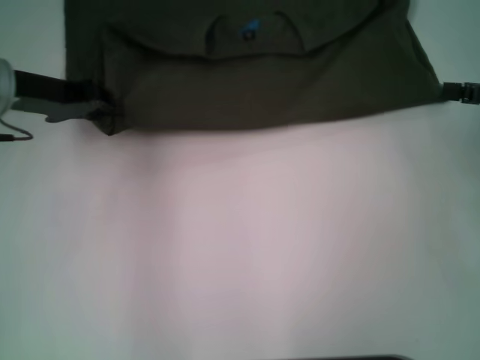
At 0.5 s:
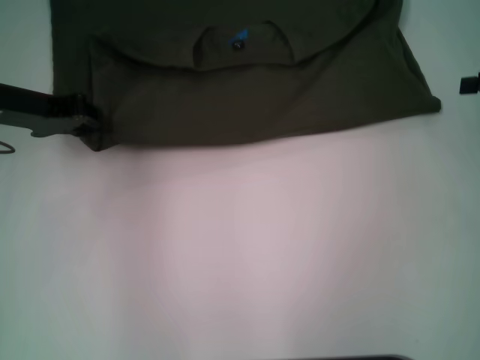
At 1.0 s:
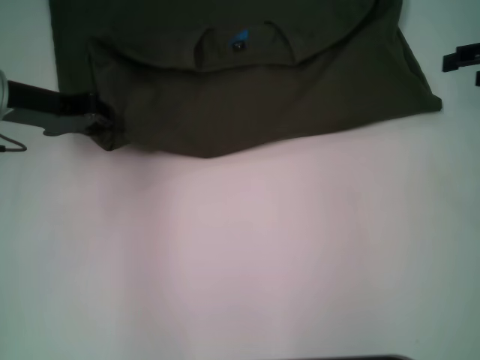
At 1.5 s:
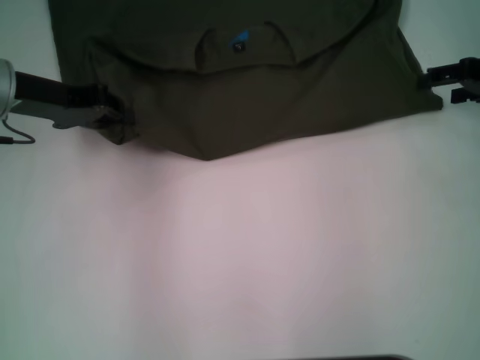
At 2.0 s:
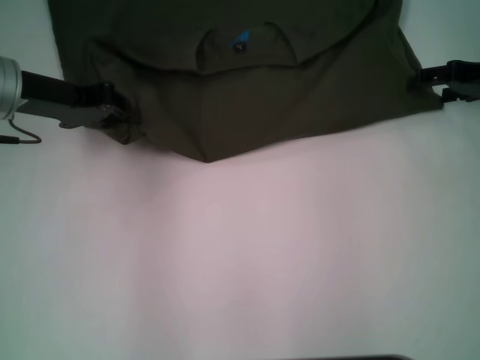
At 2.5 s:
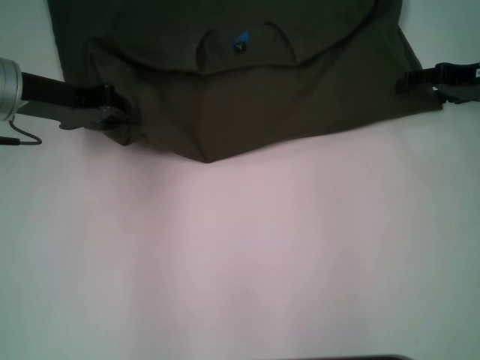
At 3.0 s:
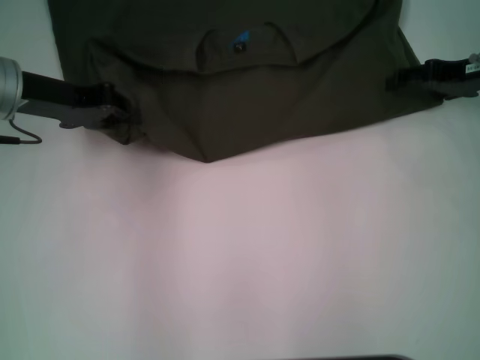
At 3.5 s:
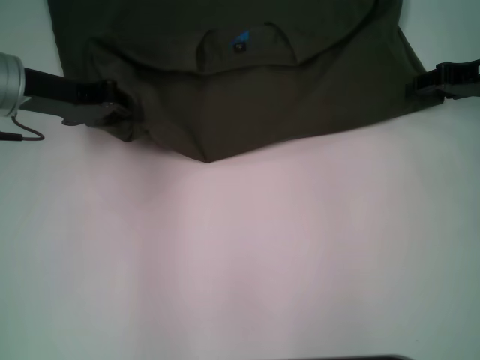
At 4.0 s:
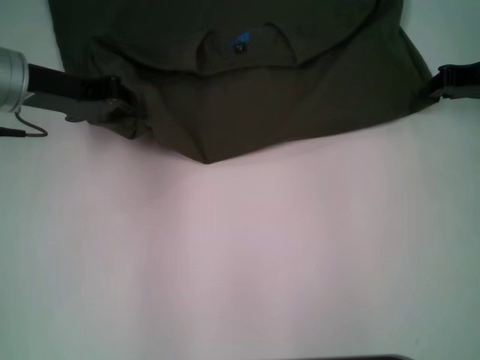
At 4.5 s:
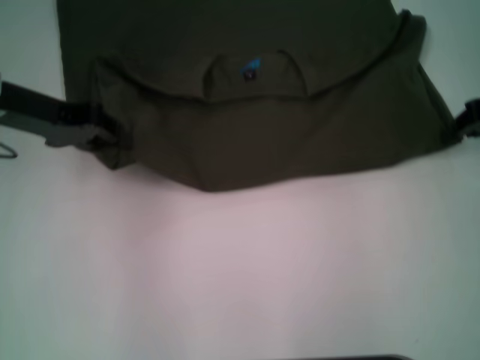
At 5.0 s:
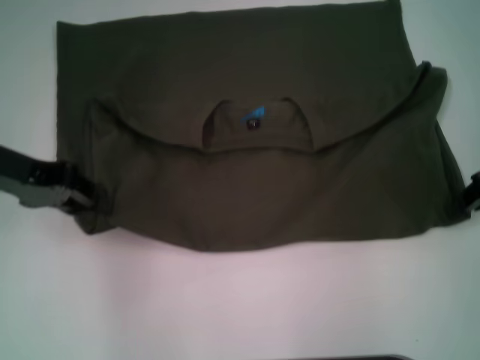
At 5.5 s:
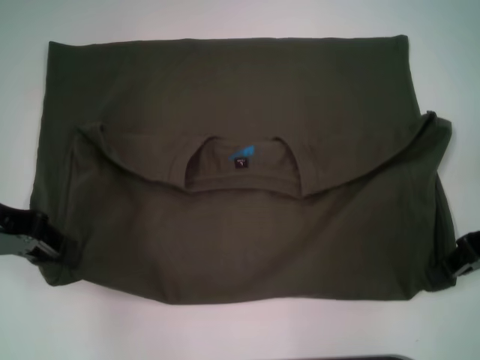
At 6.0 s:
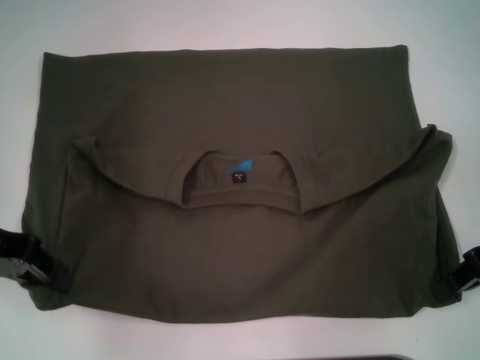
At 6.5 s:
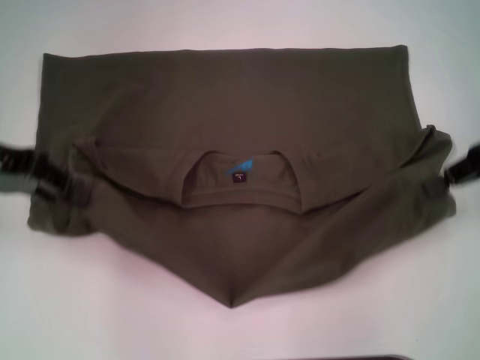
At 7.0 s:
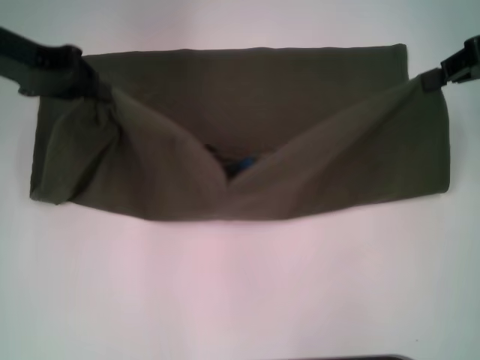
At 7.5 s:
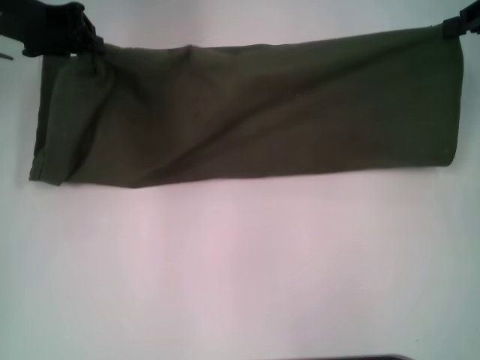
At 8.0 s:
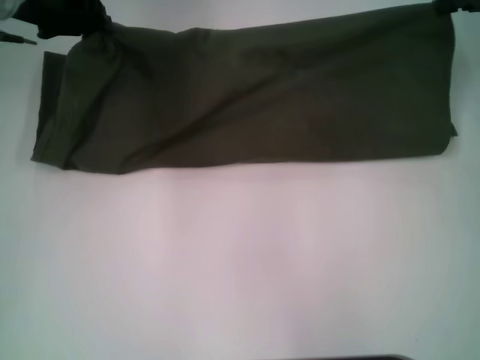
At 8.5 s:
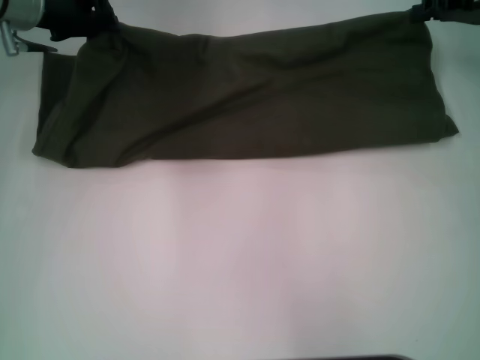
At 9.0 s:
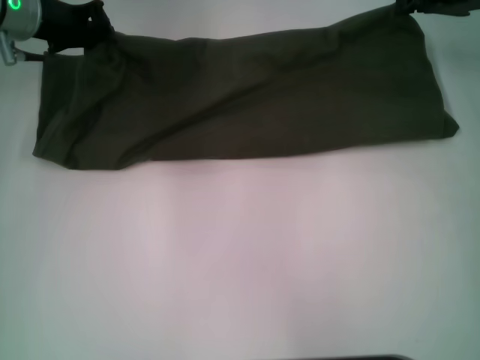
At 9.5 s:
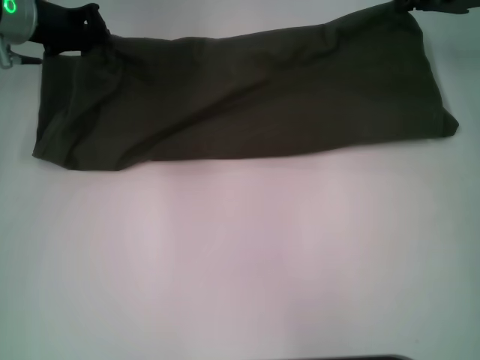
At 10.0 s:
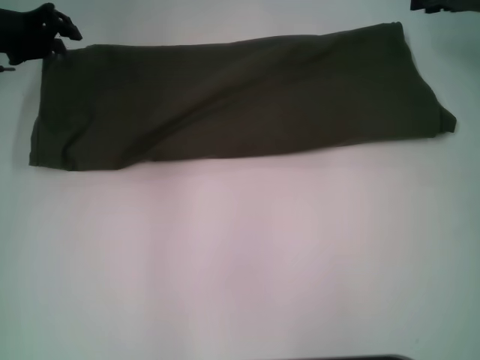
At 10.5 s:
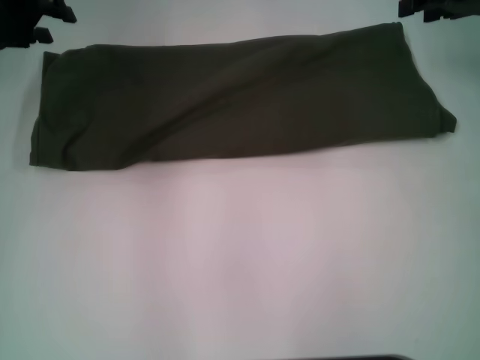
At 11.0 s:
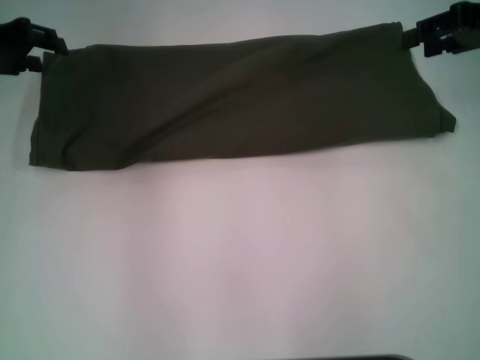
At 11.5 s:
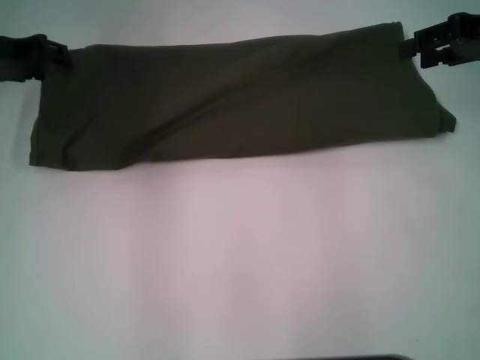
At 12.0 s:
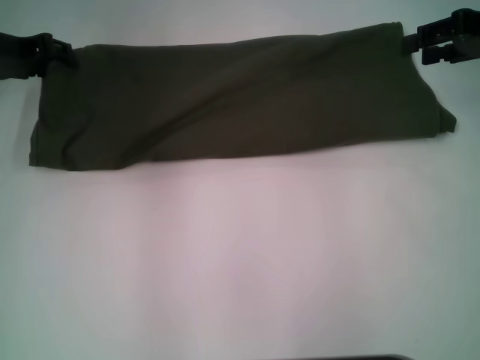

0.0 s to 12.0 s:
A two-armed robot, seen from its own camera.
Step, 0.0 to 5.5 s: Pull the clothes with your left hand.
Step, 0.0 to 5.5 s: Pull the clothes with your right hand.
Step, 6.0 to 9.5 s: Fold the clothes with your right hand.
0.0 to 2.0 s: The right gripper shifts some 10 cm forward.
2.0 to 4.0 s: The right gripper closes its fingers.
4.0 to 6.0 s: The right gripper heads backward, covering roughly 10 cm; the left gripper shifts some 10 cm backward and to the left.
6.0 to 8.0 s: The right gripper goes about 15 cm forward and upward; the left gripper goes roughly 15 cm forward and to the right.
8.0 to 10.0 s: The left gripper ends up roughly 5 cm from where it was.
10.0 to 12.0 s: The right gripper opens; the left gripper opens.

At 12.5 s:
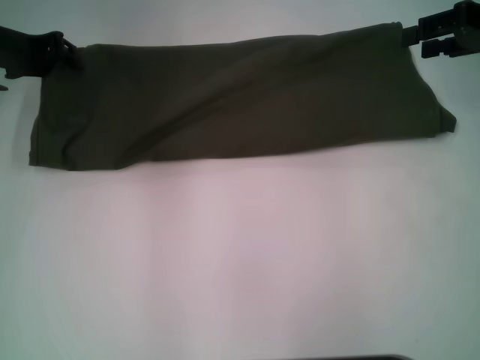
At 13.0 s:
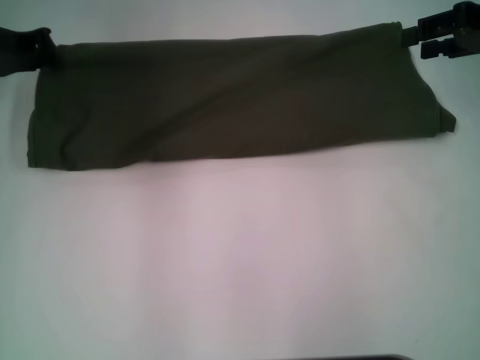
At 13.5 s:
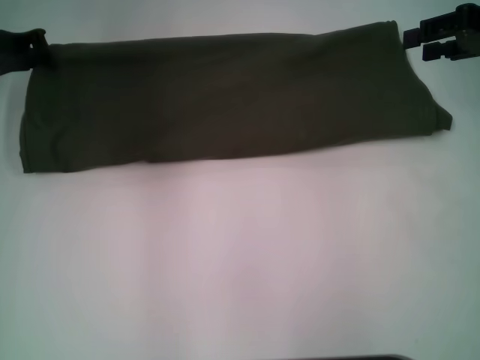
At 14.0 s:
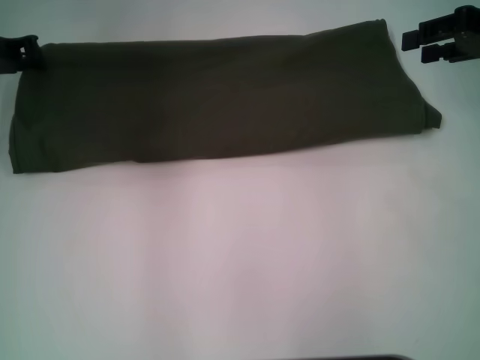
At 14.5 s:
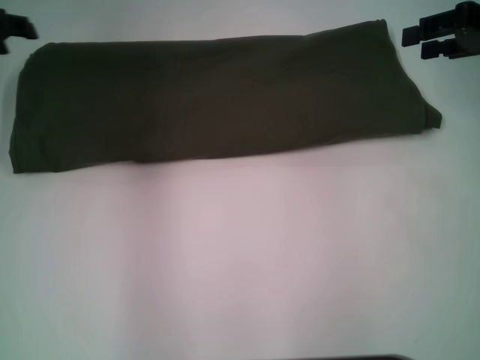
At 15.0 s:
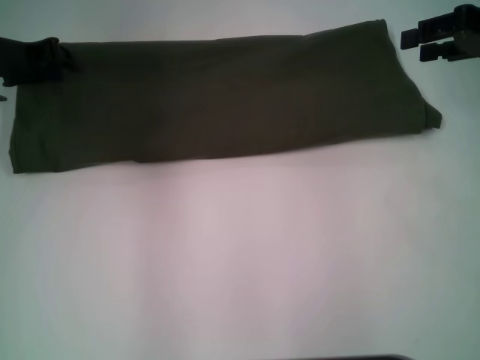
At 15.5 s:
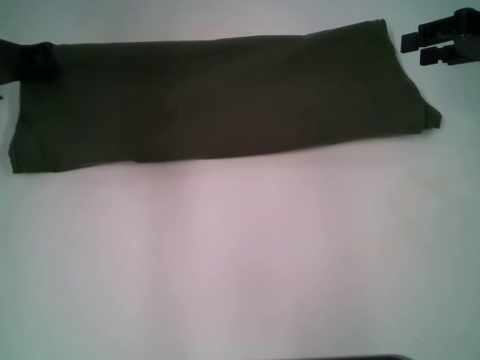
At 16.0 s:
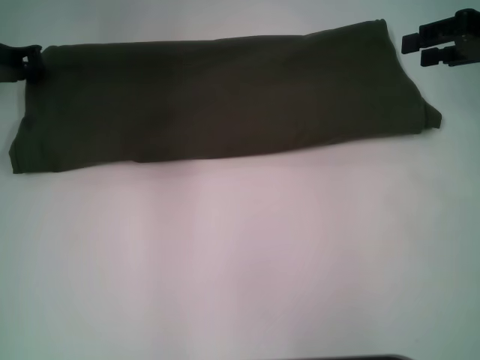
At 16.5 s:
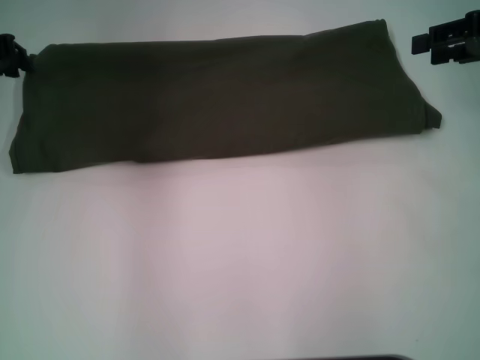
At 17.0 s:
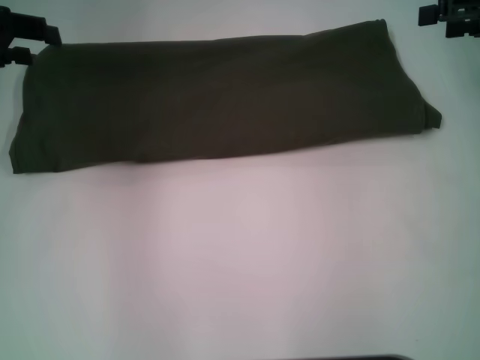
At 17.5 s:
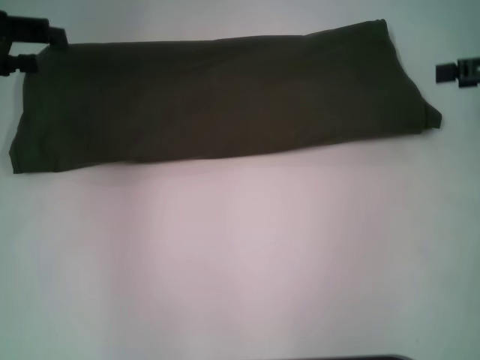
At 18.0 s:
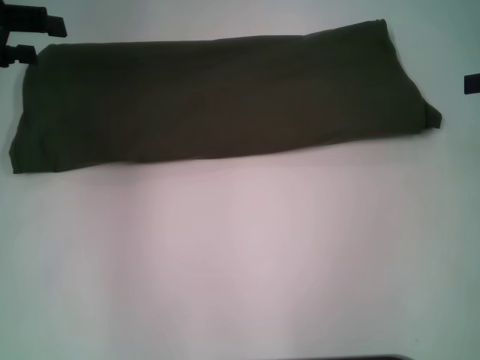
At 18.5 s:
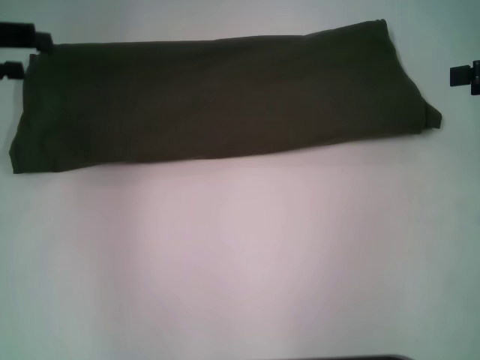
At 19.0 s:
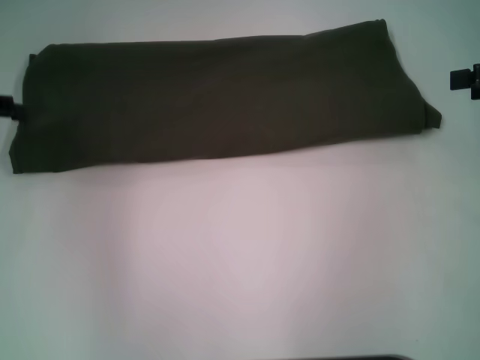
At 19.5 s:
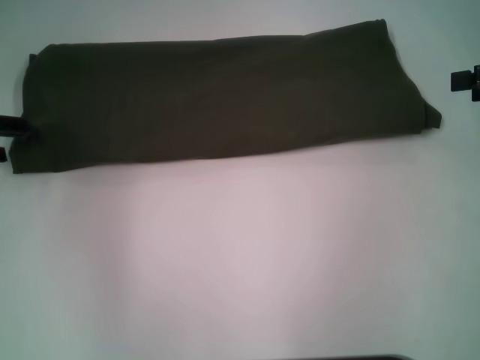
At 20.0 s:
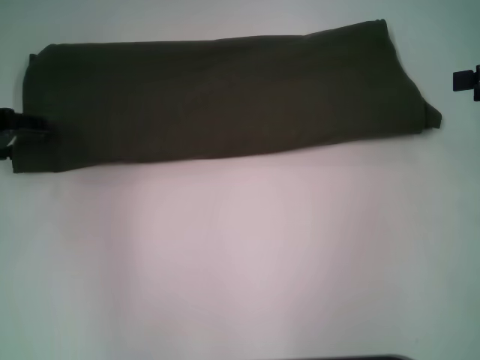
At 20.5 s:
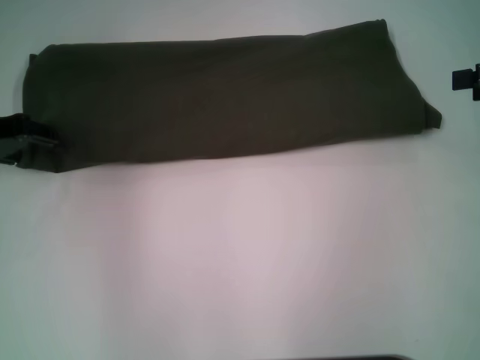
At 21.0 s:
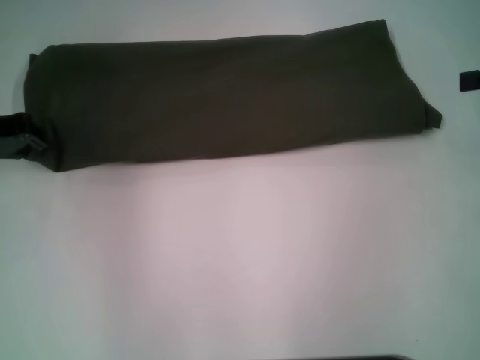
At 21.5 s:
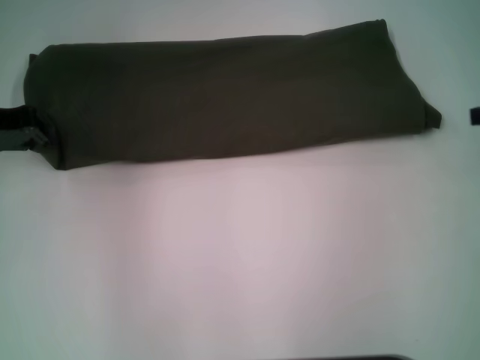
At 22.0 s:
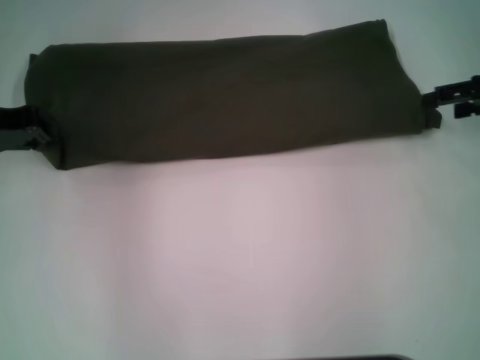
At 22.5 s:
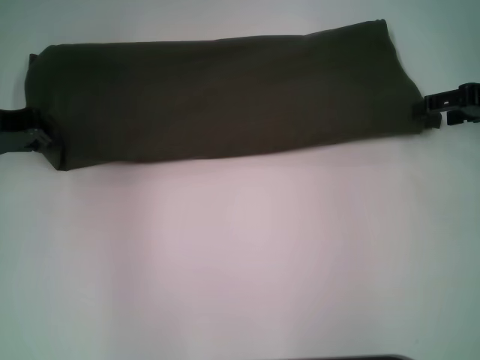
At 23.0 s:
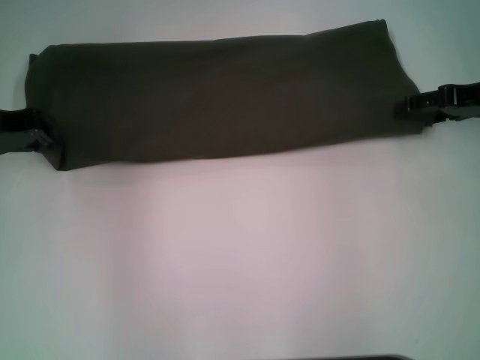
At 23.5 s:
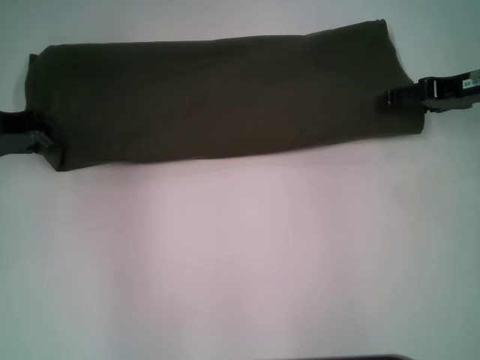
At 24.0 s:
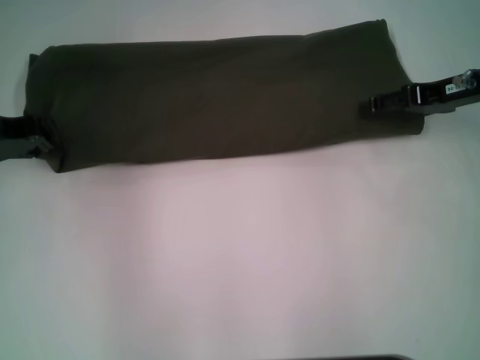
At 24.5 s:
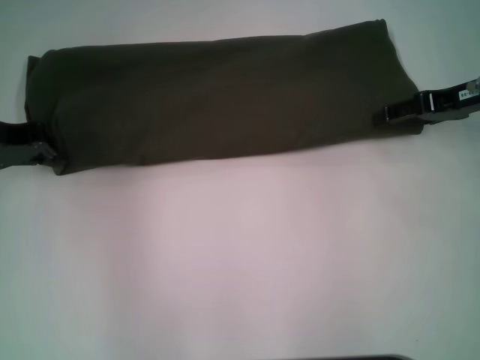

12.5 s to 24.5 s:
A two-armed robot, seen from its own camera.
12.5 to 14.5 s: The left gripper closes, then reopens.
14.5 to 16.5 s: The left gripper closes up.
16.5 to 18.5 s: The left gripper changes place by about 5 cm, and opens, while the right gripper shifts by about 5 cm, and opens up.
18.5 to 20.5 s: The left gripper is displaced downward by some 5 cm.
20.5 to 22.5 s: The left gripper closes its fingers. The right gripper shifts by approximately 5 cm.
22.5 to 24.5 s: The grippers move only a little.

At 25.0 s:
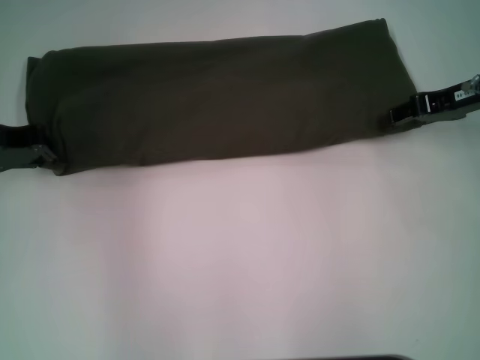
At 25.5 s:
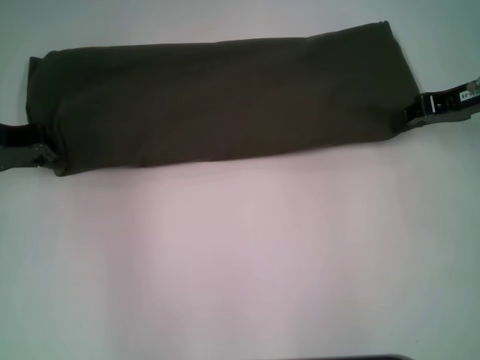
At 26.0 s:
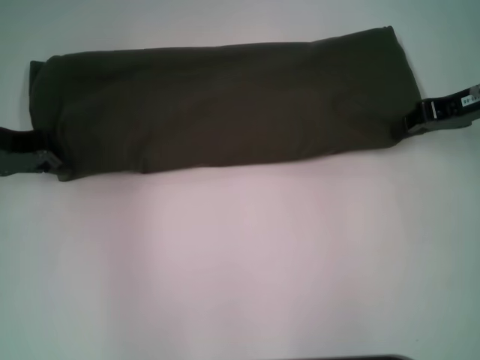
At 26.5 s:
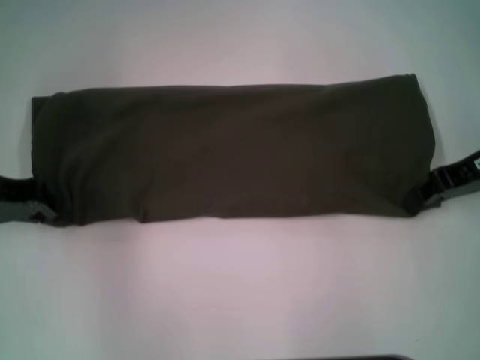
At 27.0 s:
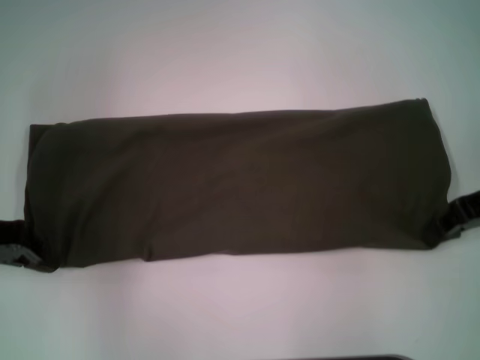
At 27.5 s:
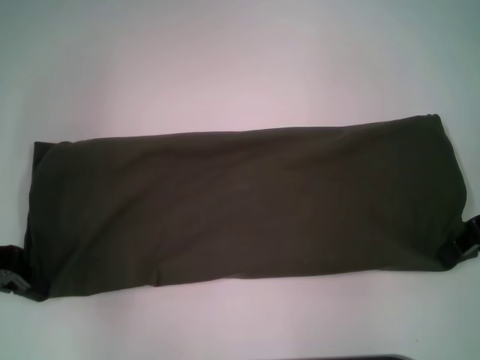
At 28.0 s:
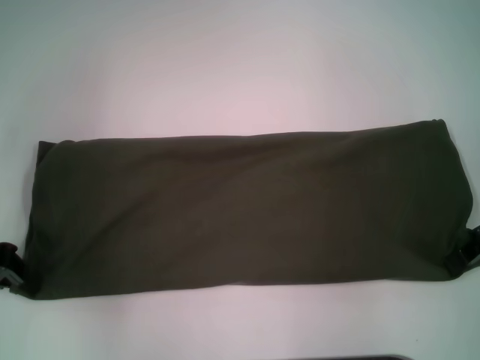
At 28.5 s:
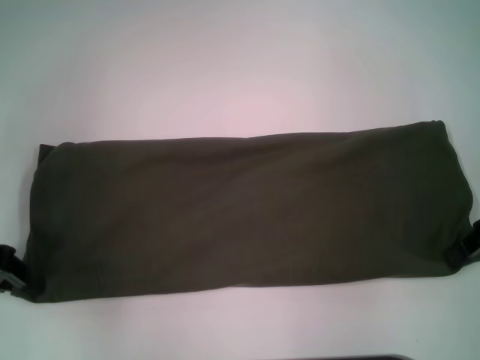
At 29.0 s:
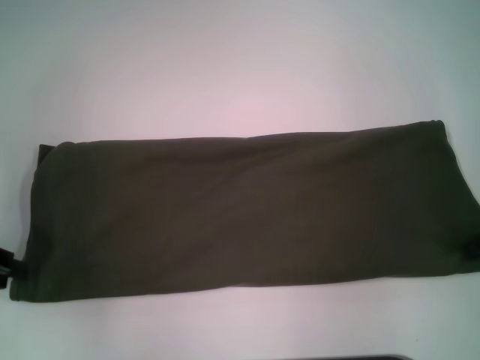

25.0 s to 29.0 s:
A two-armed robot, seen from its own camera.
25.0 to 27.0 s: The grippers both shift backward by about 5 cm. The right gripper closes.
27.0 to 29.0 s: The right gripper shifts by some 5 cm.
